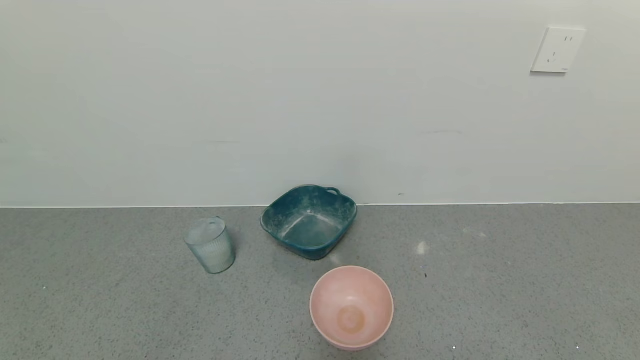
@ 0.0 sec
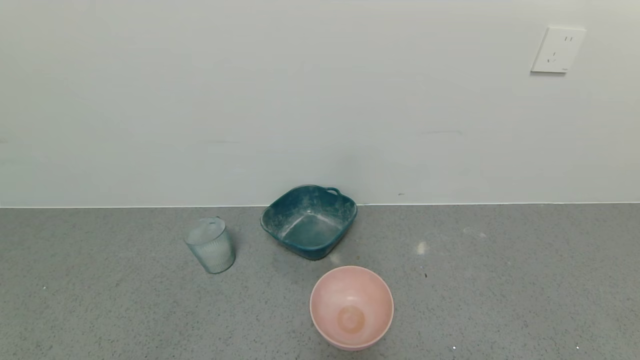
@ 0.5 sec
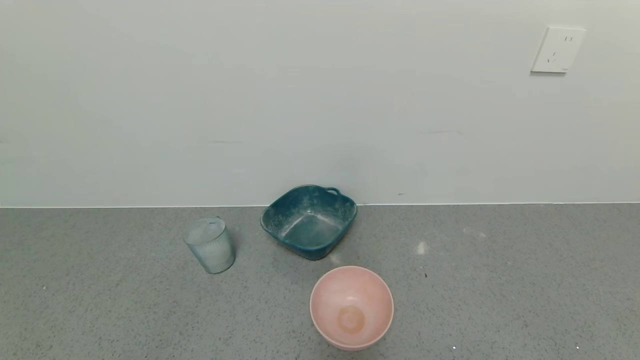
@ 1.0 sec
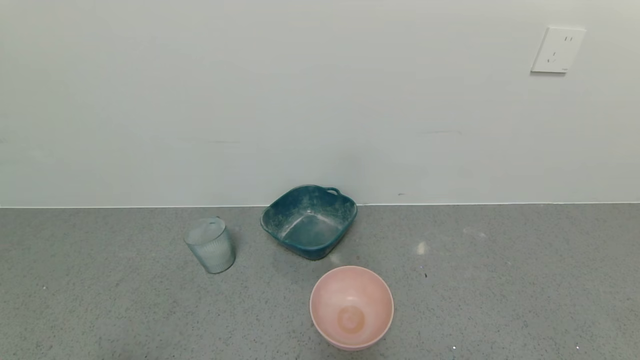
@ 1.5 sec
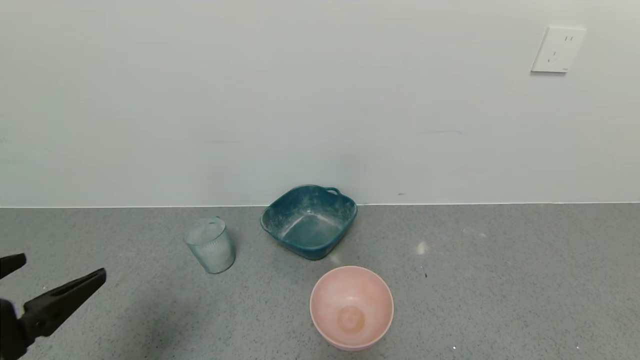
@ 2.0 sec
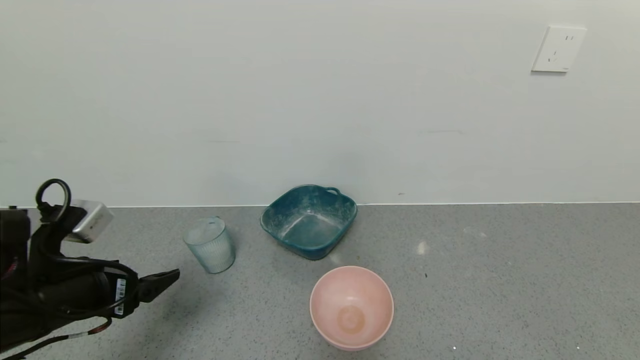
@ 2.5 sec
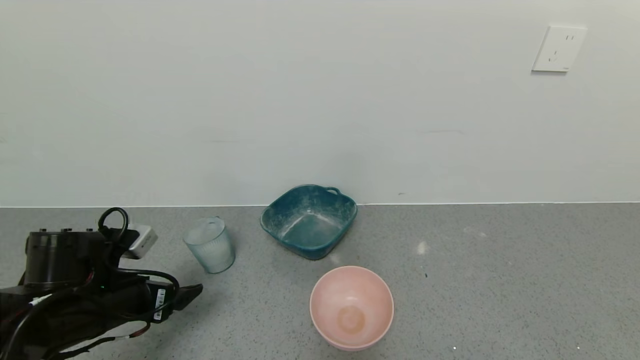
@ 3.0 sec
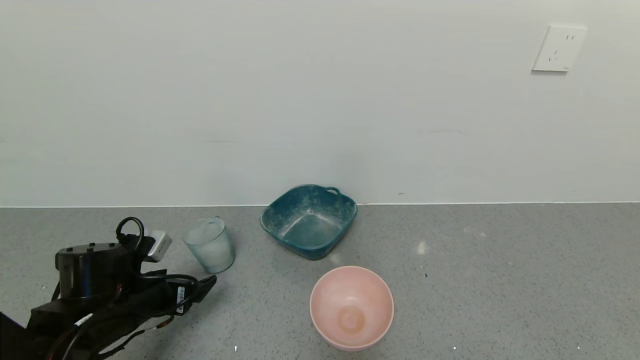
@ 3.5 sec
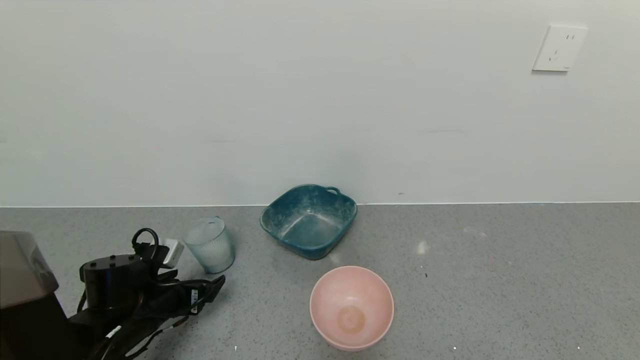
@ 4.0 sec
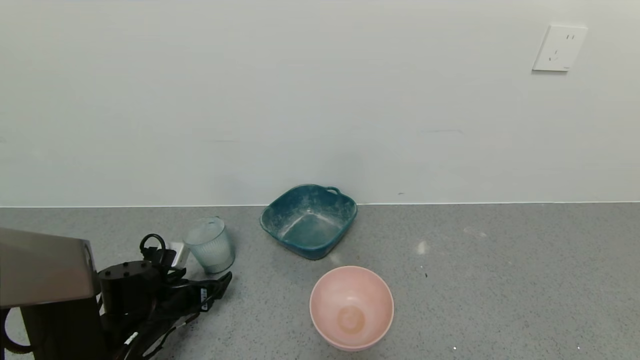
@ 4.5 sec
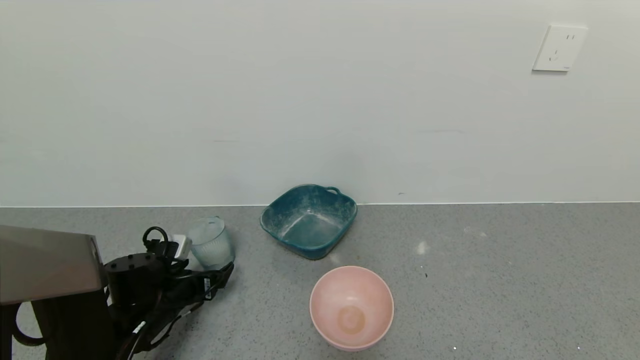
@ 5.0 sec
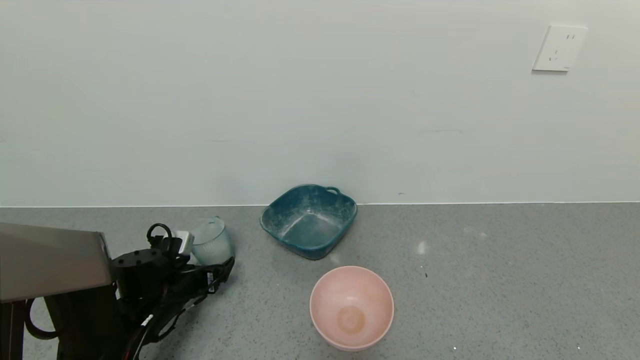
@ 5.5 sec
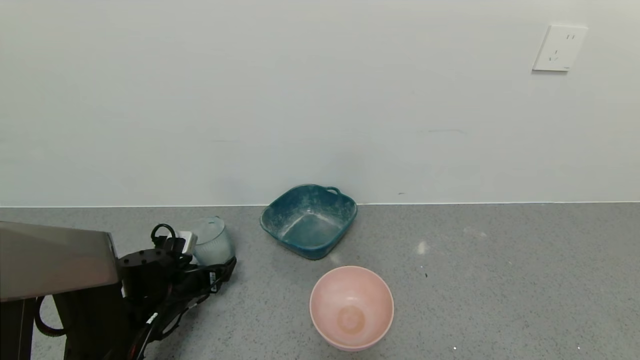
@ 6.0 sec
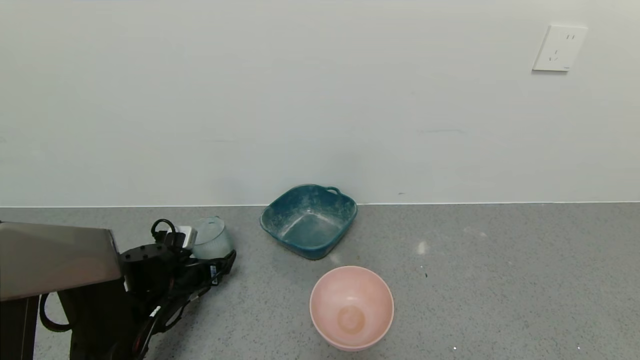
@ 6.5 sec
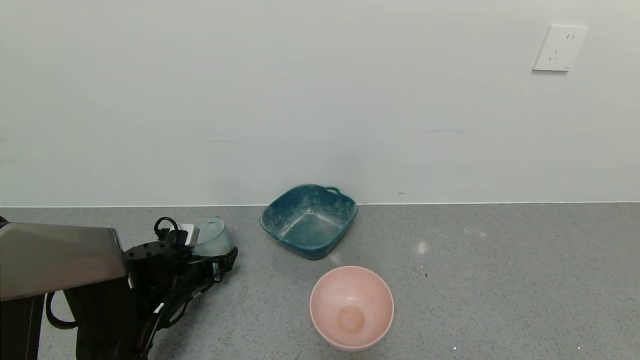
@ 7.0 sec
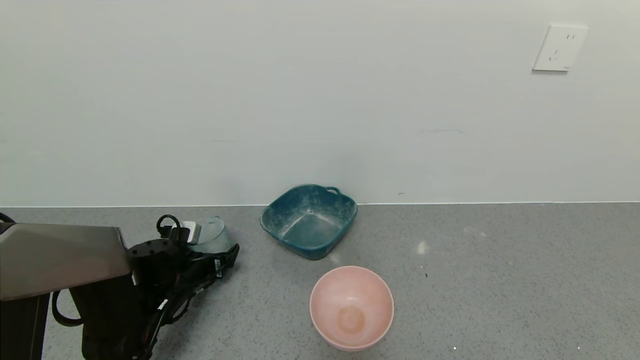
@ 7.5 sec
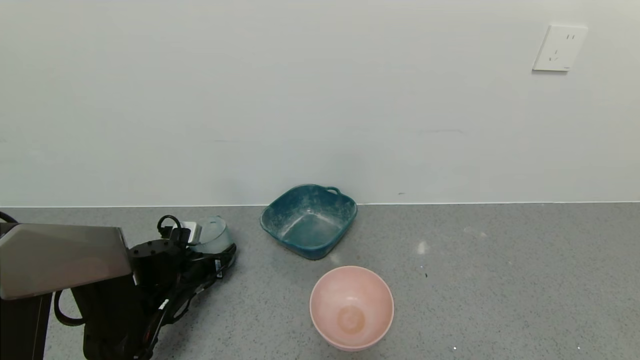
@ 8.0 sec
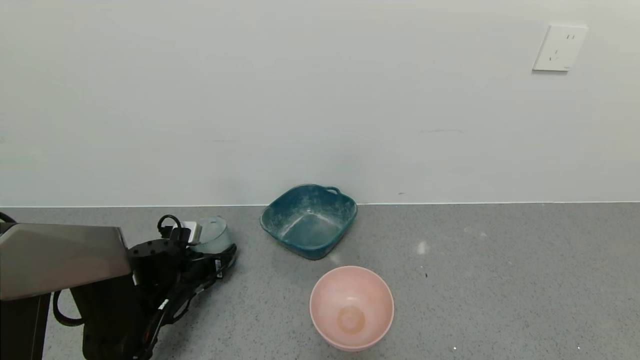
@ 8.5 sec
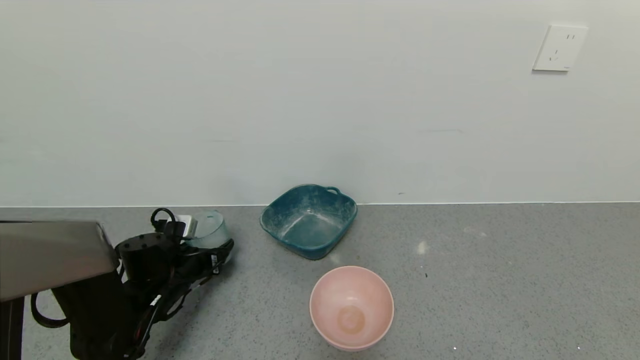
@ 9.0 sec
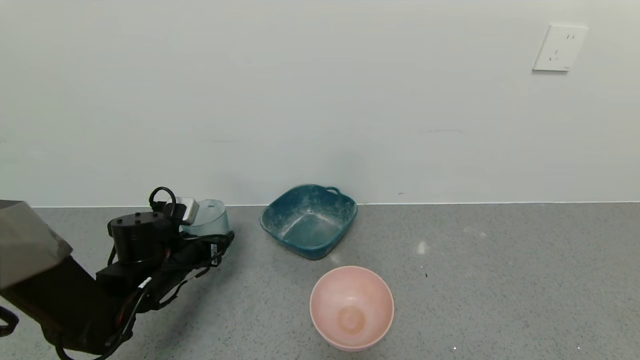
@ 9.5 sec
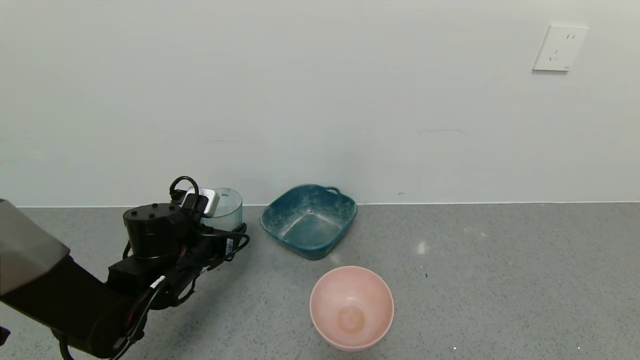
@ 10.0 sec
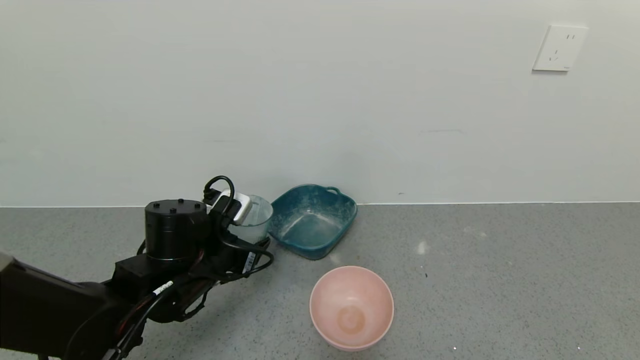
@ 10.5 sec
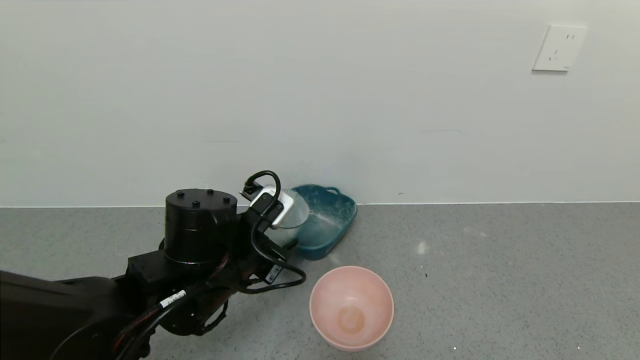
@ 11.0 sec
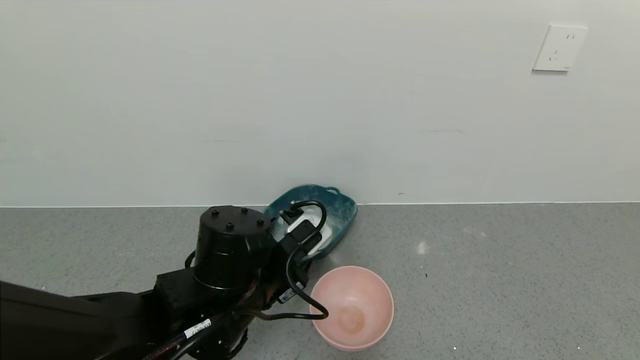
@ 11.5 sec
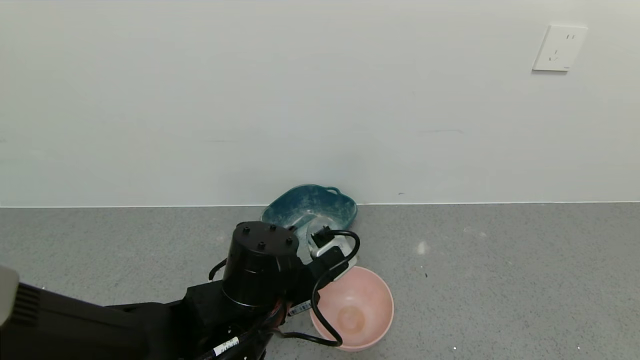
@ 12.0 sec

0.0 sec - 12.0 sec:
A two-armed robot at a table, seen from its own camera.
Task of the whole recording: use a gripper to pick up the cup and pour the powder into a bowl or tray.
Step, 0.0 sec - 8.0 sec: Grasp the glass of powder with the left gripper.
0.0 sec - 2.0 sec: The left gripper travels upward and forward by approximately 20 cm.
2.0 sec - 4.0 sec: The left gripper travels downward and forward by about 25 cm.
4.0 sec - 6.0 sec: The left gripper ends up about 5 cm from where it was.
6.0 sec - 8.0 sec: The left gripper closes.
8.0 sec - 10.0 sec: The left gripper travels upward and to the right by approximately 10 cm.
10.0 sec - 12.0 sec: The left gripper goes some 15 cm to the right and backward.

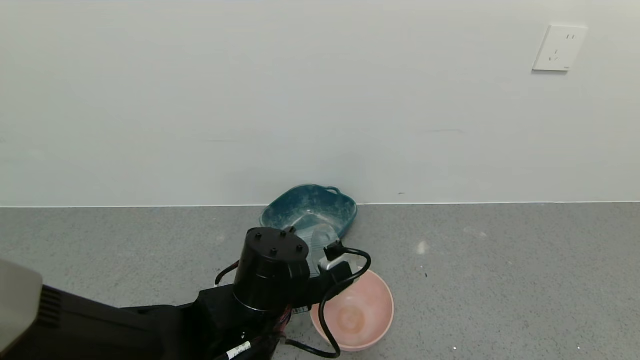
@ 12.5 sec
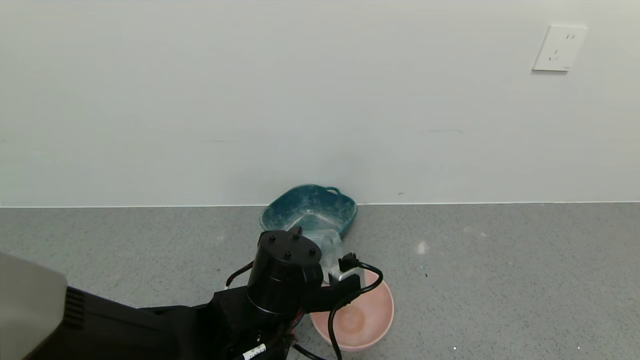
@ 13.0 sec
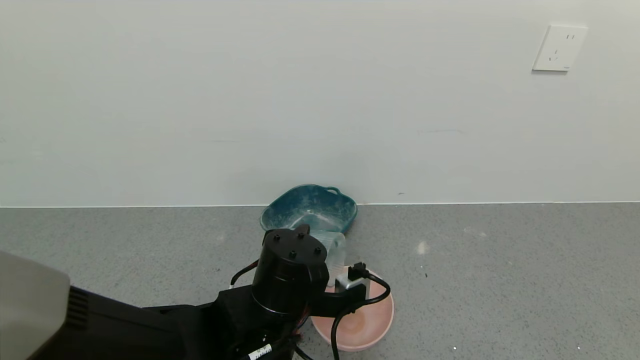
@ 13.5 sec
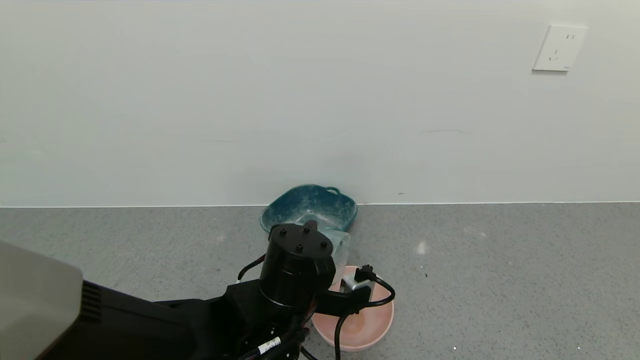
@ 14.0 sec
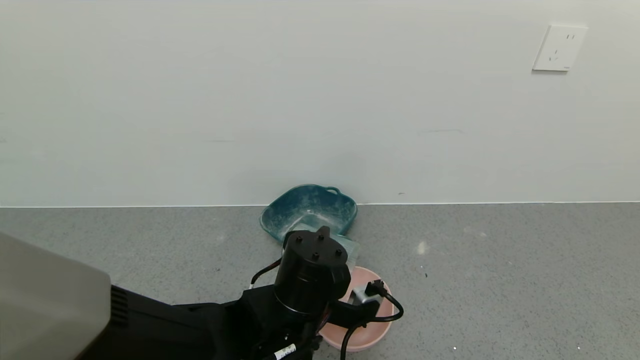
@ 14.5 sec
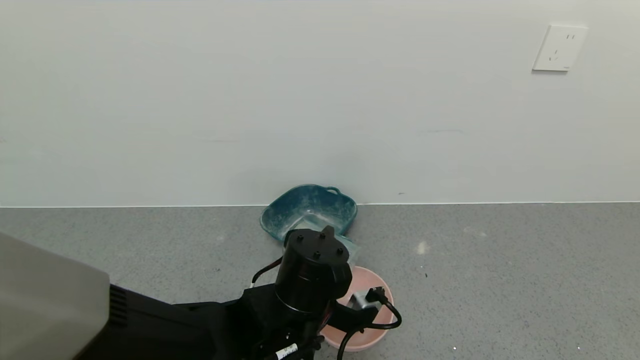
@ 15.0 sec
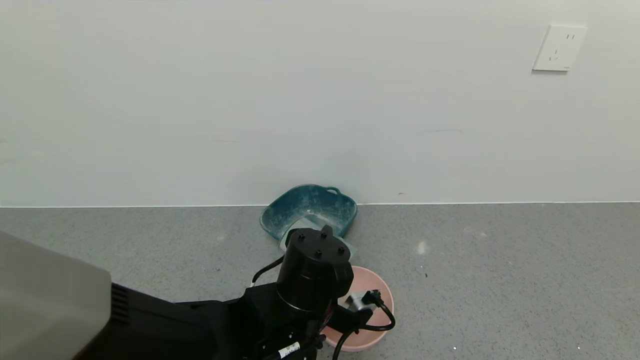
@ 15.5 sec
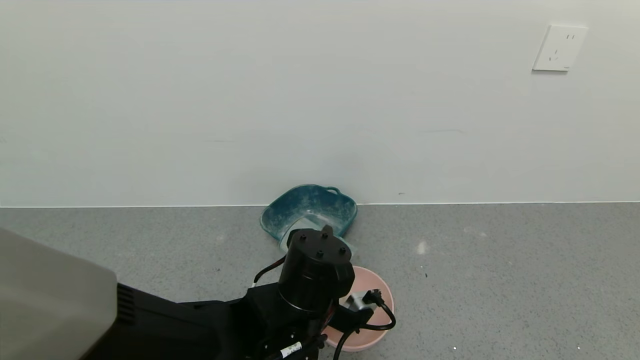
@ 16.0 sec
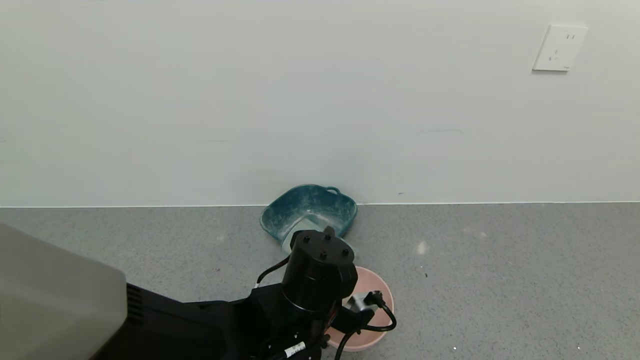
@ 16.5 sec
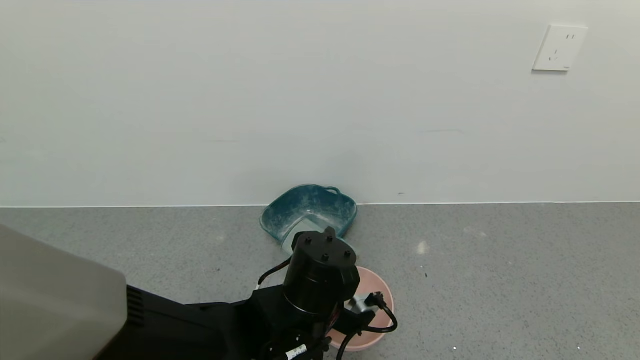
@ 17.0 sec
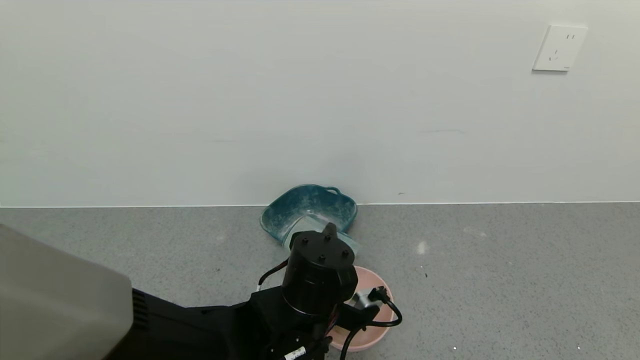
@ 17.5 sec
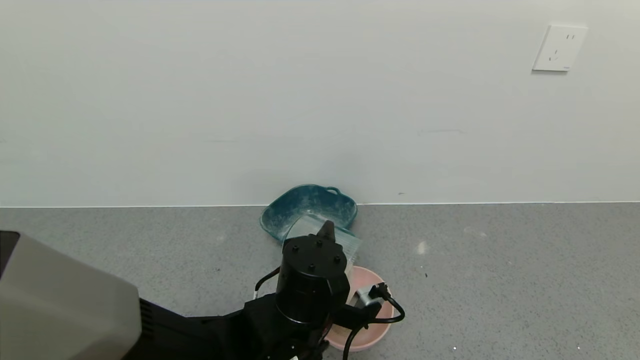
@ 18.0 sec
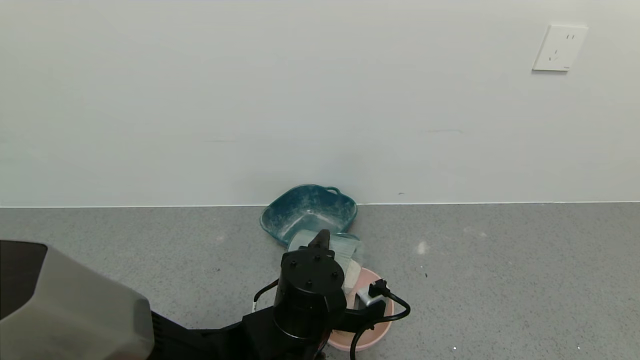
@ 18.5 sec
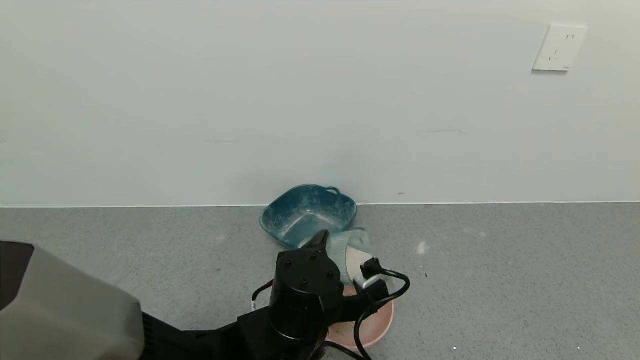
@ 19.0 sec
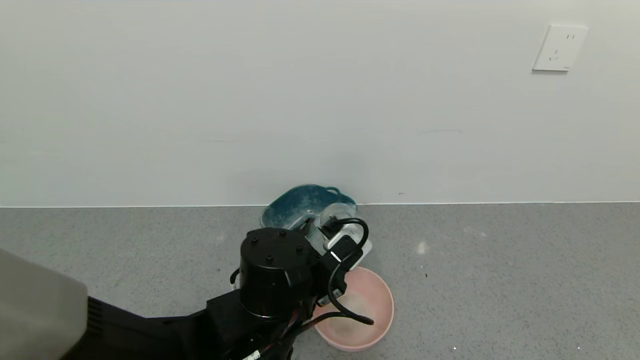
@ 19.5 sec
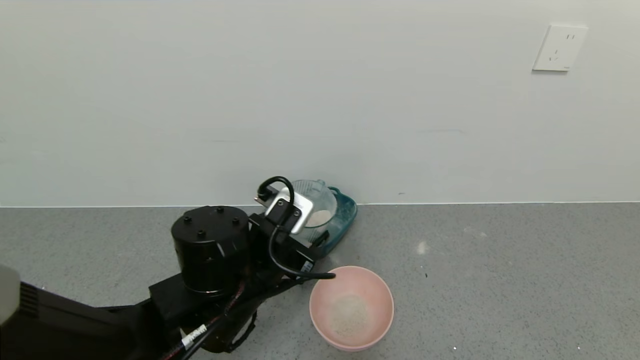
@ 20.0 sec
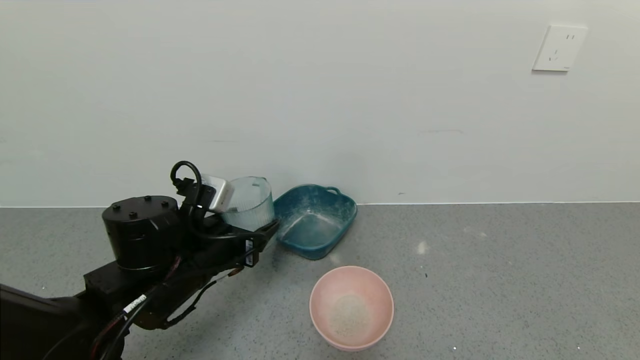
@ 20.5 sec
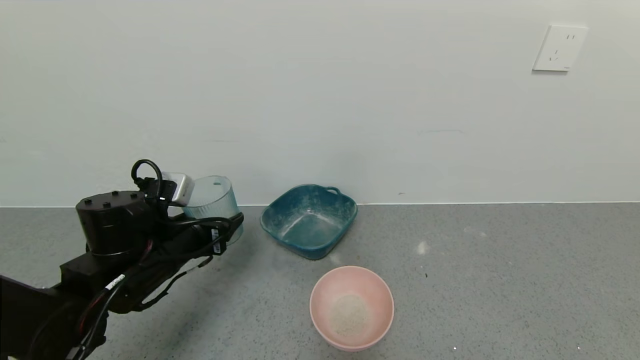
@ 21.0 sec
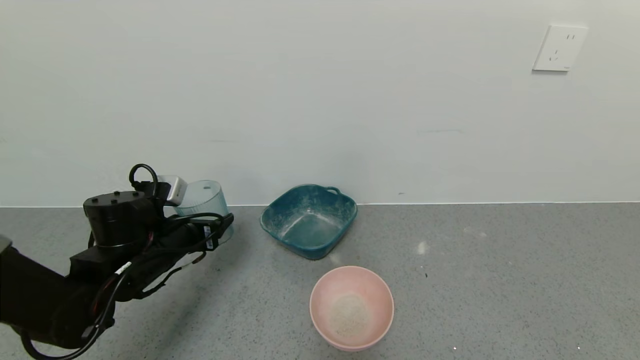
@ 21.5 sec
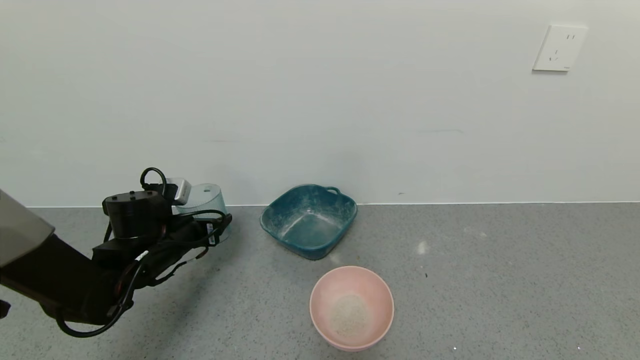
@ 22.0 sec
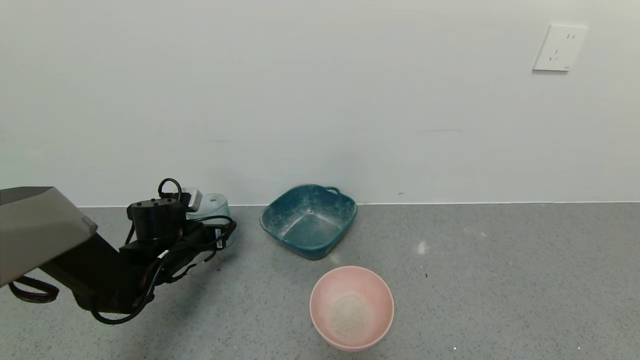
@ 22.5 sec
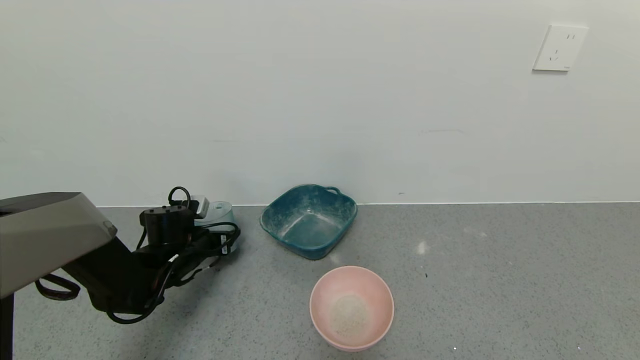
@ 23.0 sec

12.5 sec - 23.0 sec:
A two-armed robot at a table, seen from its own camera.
Task of the whole recording: use a gripper to pick up the cup and pour the powder into a bowl or tray.
Step, 12.5 sec - 17.5 sec: Pour the powder into the pink bowl with the left gripper.
14.5 sec - 16.5 sec: There are only small adjustments of the grippers.
19.0 sec - 21.0 sec: The left gripper goes roughly 20 cm to the left.
21.0 sec - 23.0 sec: The left gripper moves forward and downward, some 15 cm.
